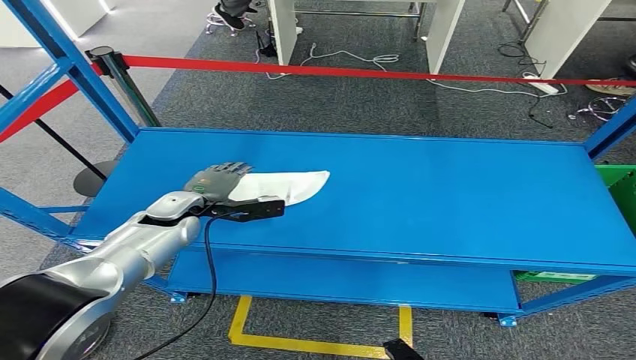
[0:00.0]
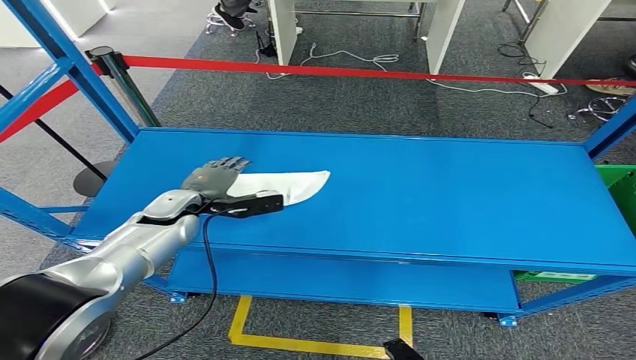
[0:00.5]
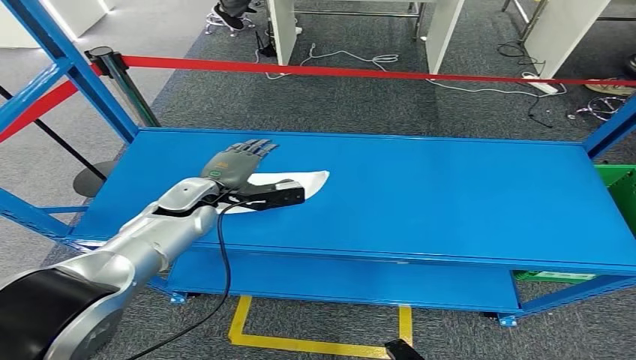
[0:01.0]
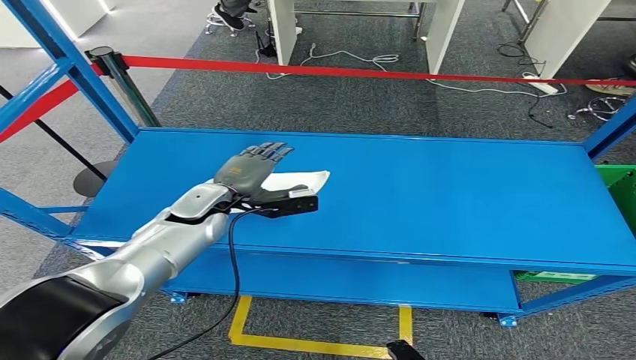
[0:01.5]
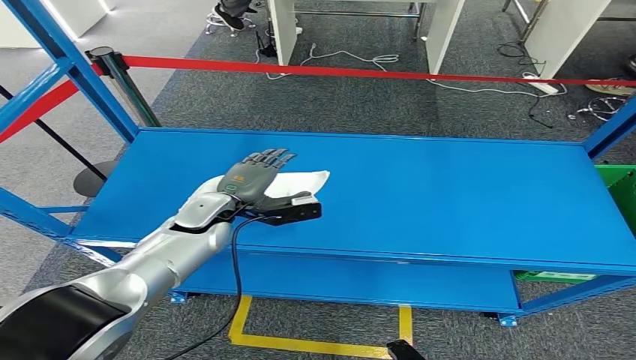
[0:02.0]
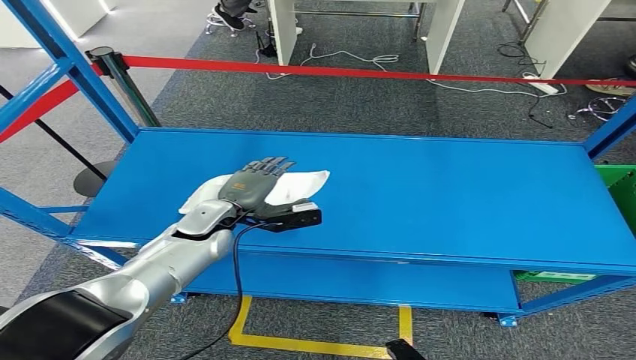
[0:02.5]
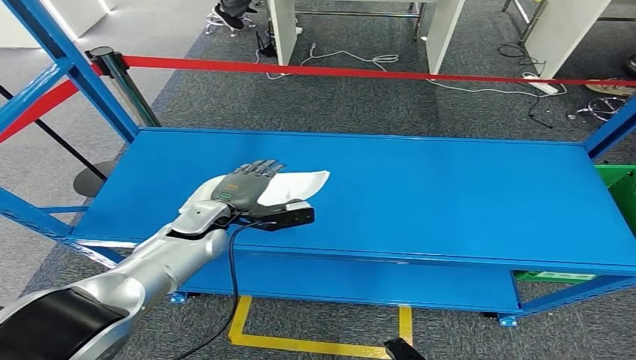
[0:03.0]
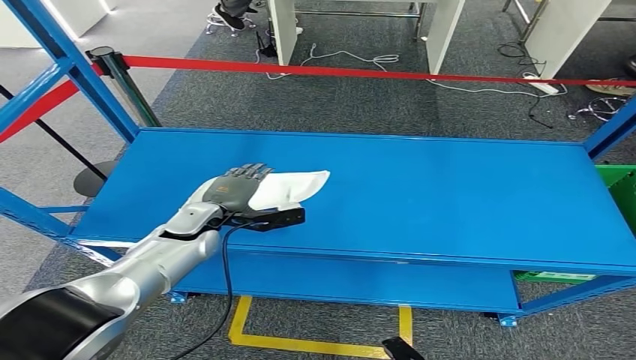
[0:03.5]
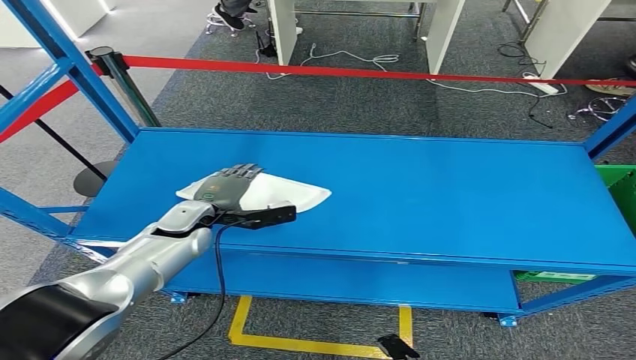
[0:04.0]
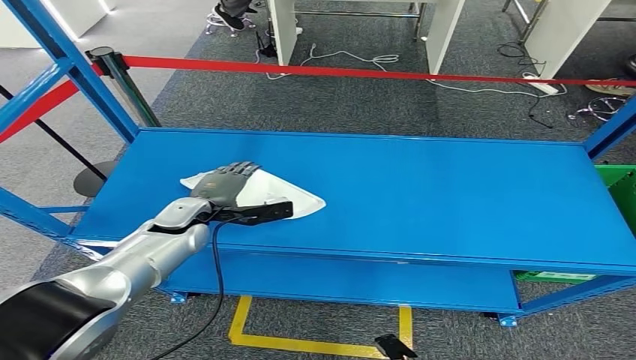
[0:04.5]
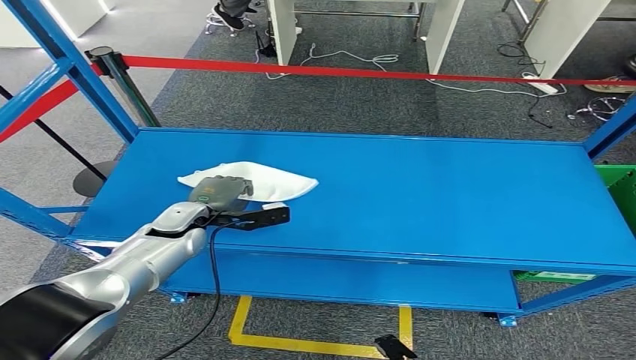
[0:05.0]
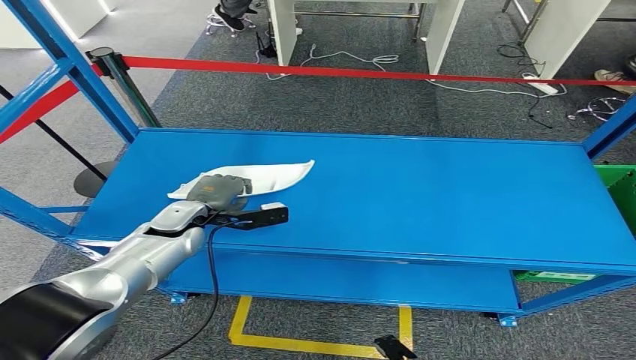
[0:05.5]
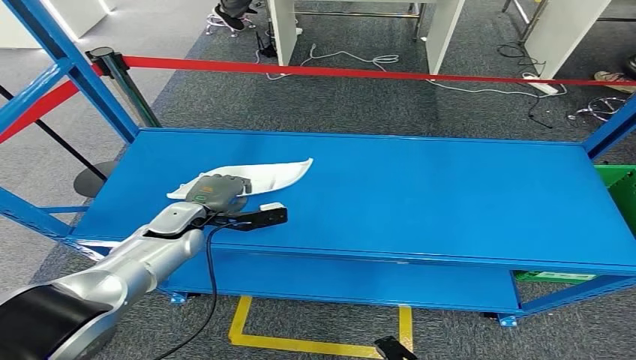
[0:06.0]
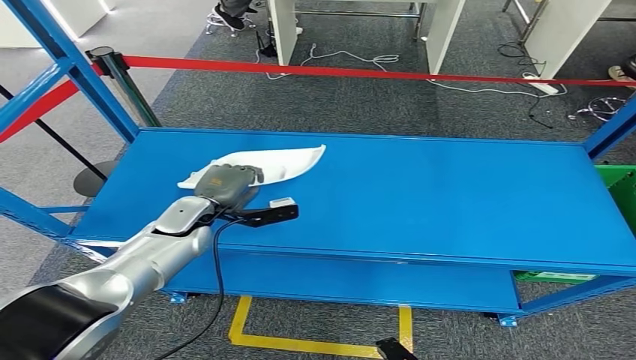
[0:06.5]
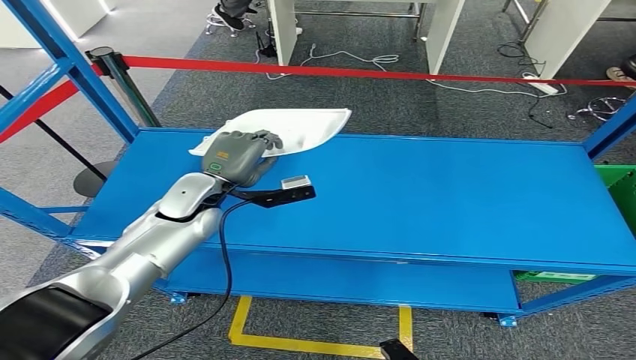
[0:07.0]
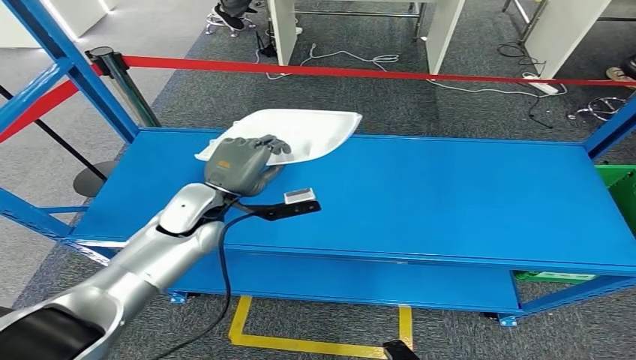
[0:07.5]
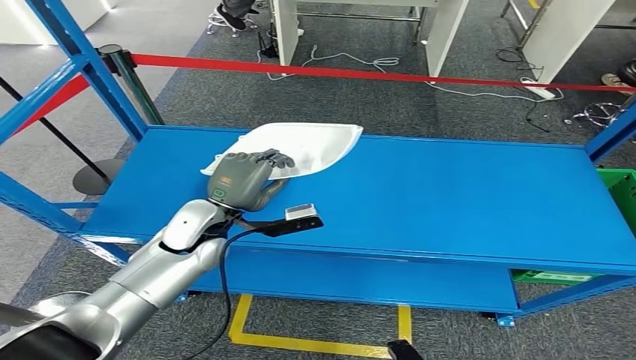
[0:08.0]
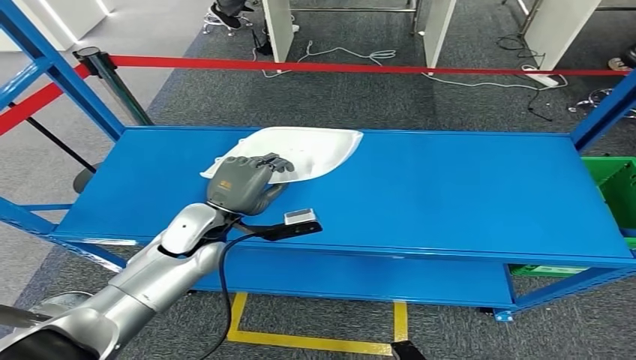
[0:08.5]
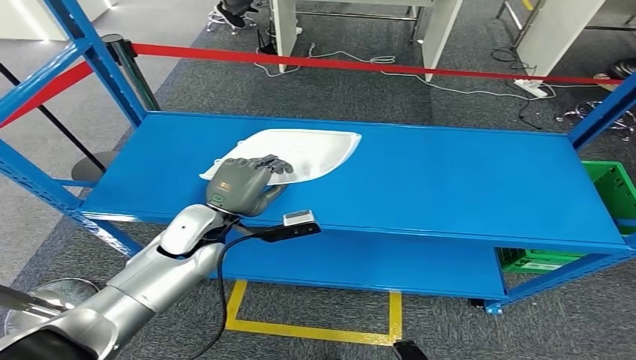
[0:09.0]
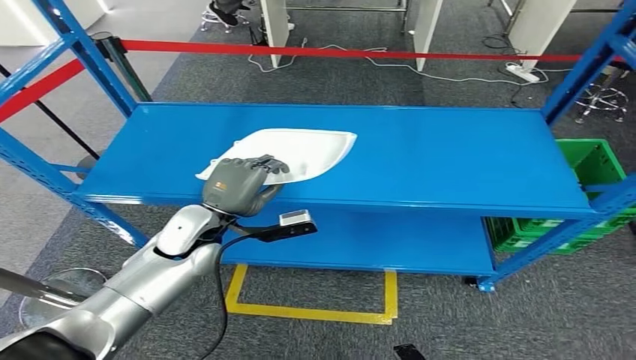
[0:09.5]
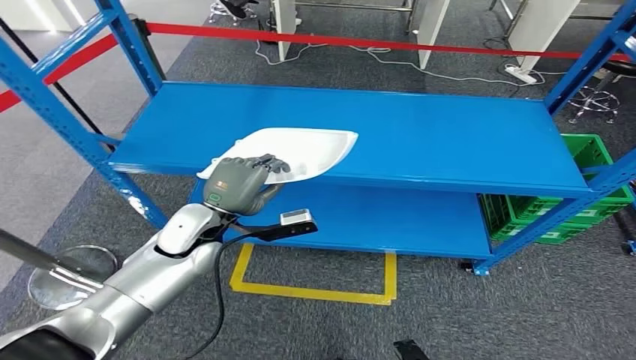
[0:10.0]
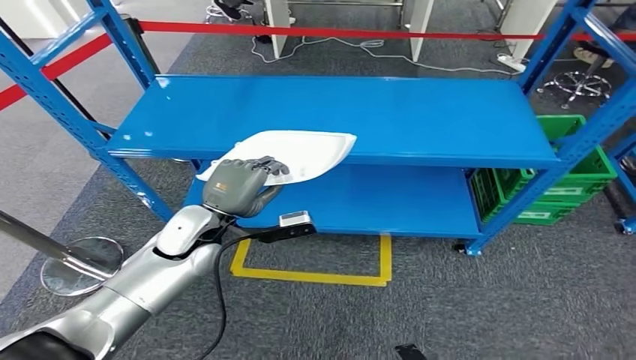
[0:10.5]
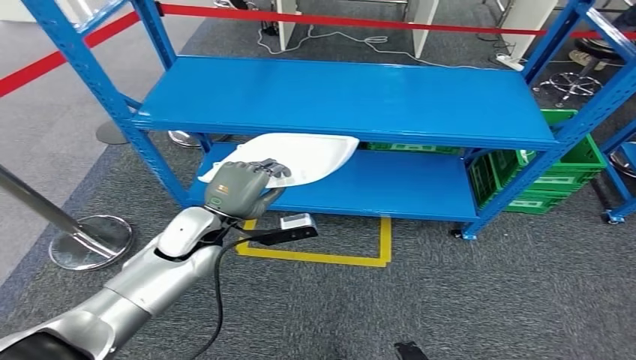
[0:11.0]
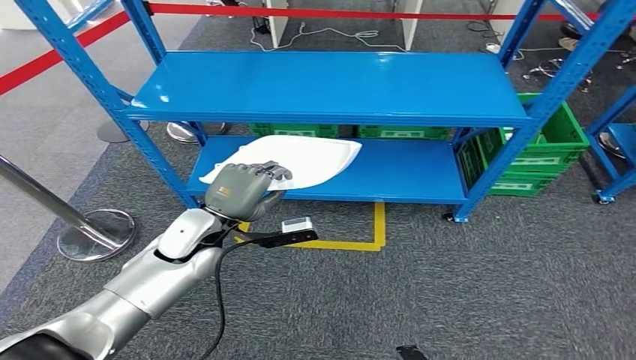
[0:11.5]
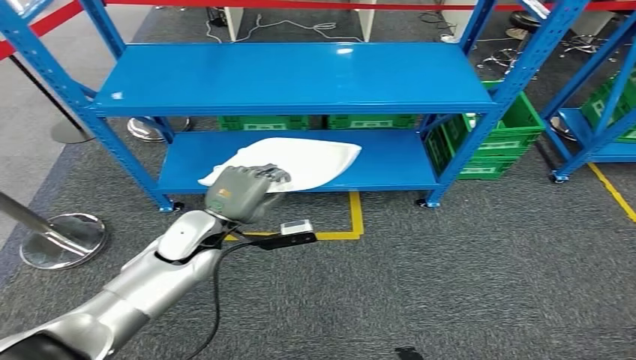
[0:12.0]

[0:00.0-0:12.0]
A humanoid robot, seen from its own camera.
Step, 0:00.0 to 0:09.0: Pick up the small component from the shelf.
0:00.0 to 0:02.0: The left hand moves to the right, roughly 5 cm.
0:02.0 to 0:04.0: The hands stay close to where they were, moving slightly.
0:04.0 to 0:06.0: There are only small adjustments of the hands.

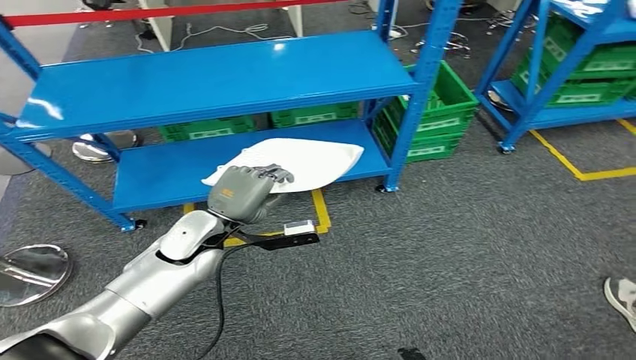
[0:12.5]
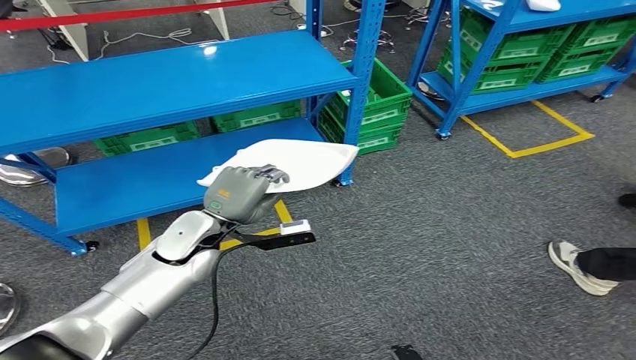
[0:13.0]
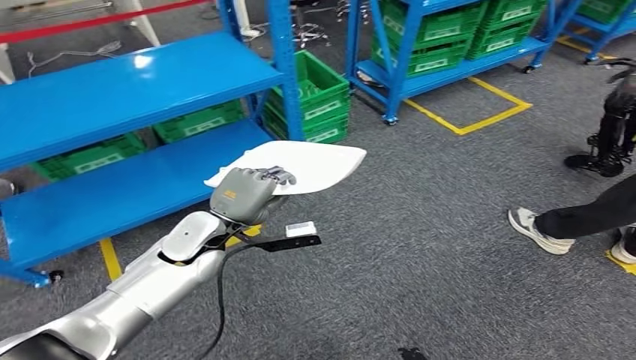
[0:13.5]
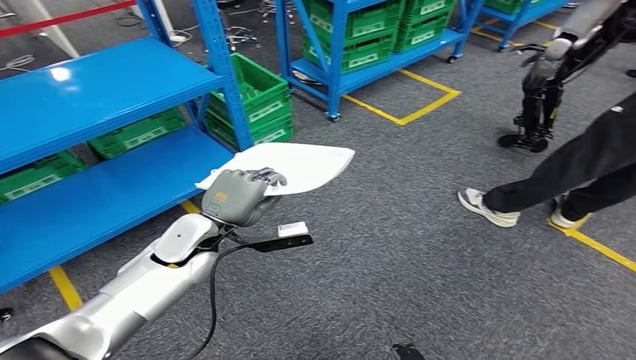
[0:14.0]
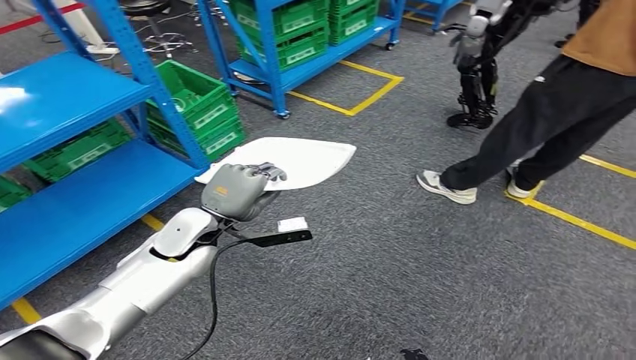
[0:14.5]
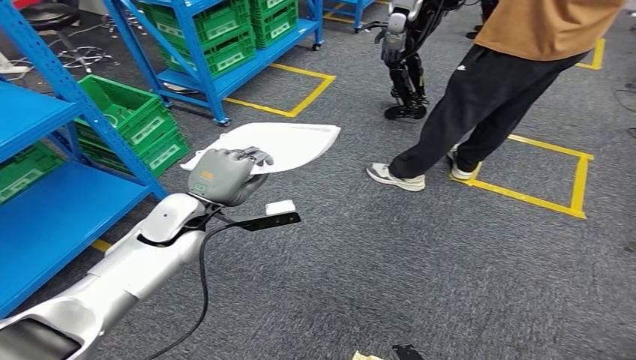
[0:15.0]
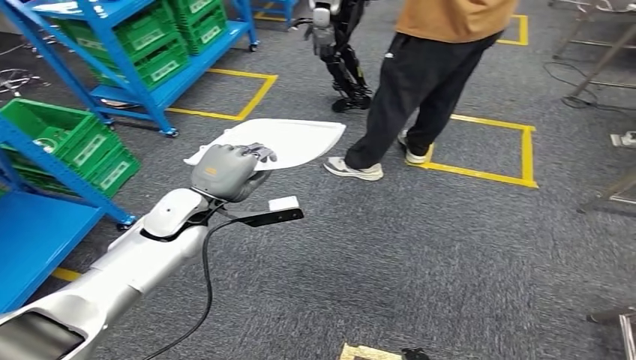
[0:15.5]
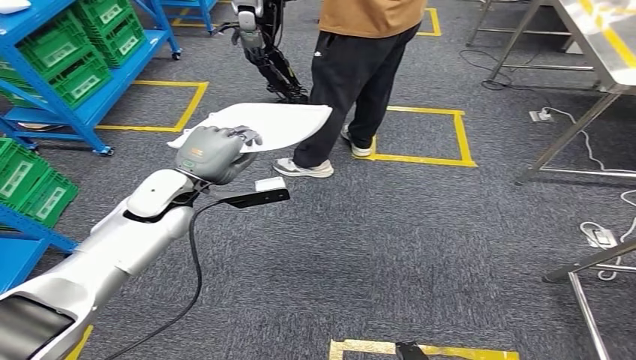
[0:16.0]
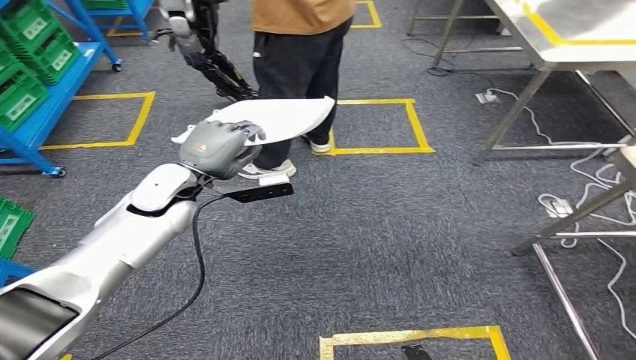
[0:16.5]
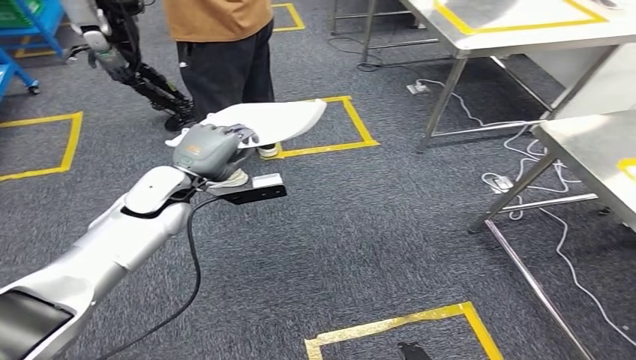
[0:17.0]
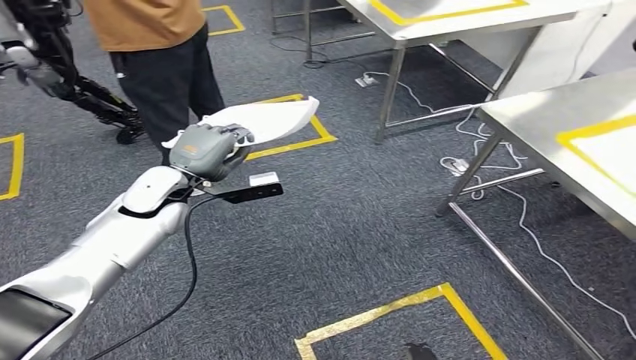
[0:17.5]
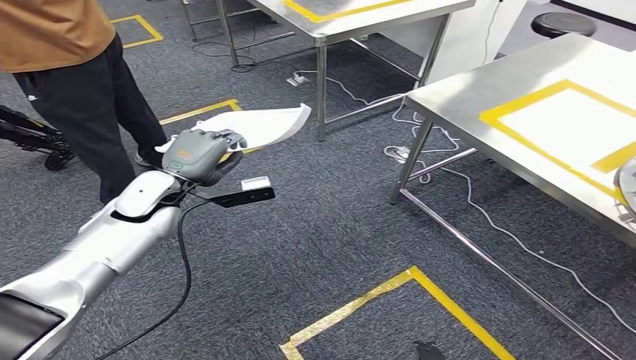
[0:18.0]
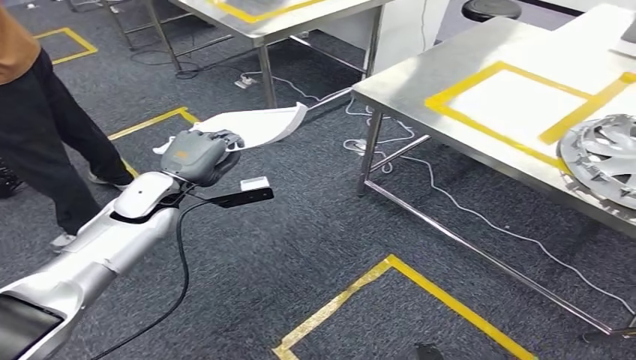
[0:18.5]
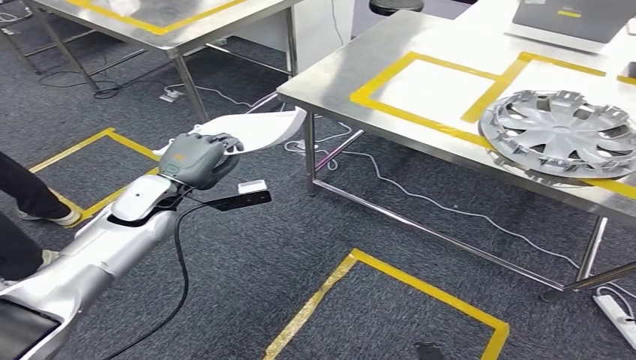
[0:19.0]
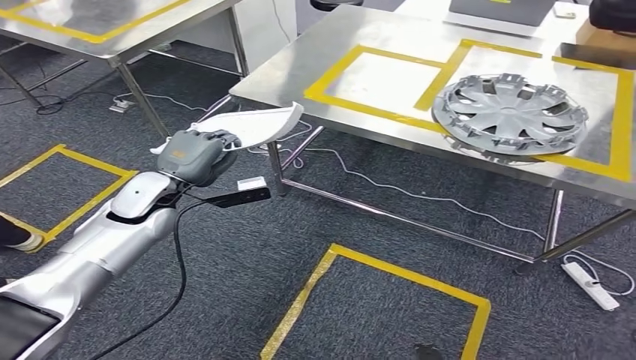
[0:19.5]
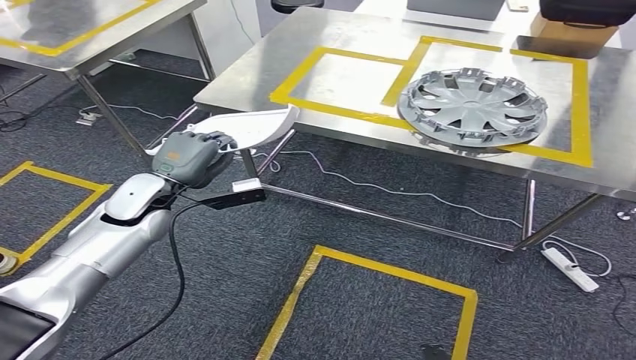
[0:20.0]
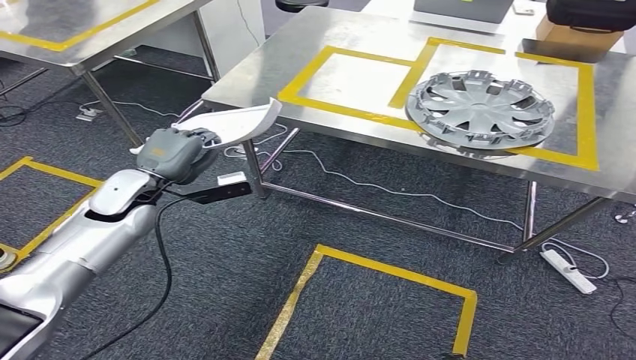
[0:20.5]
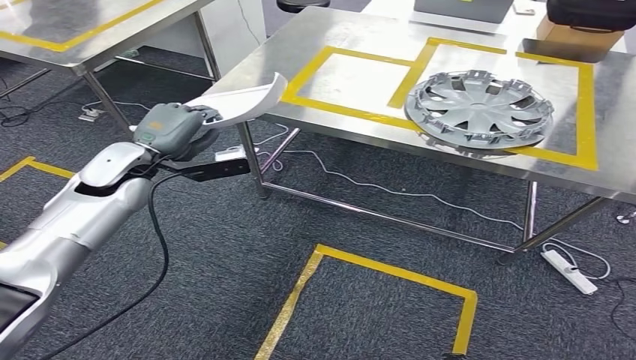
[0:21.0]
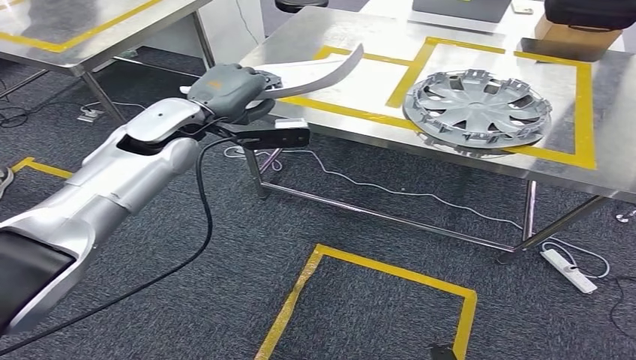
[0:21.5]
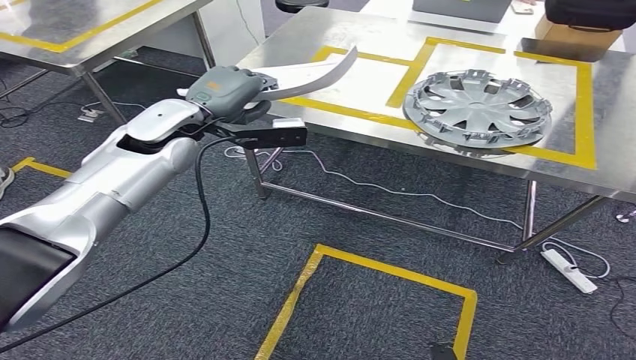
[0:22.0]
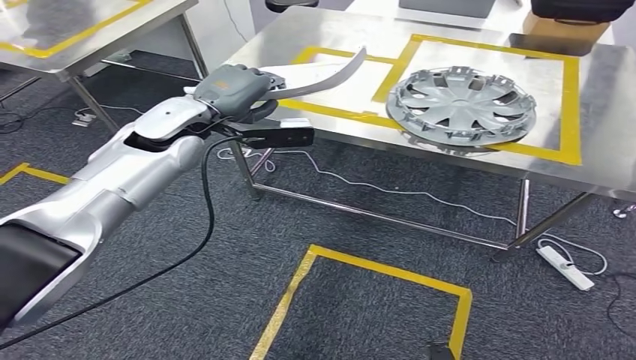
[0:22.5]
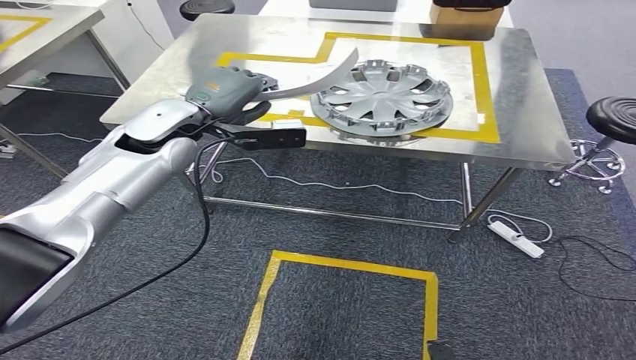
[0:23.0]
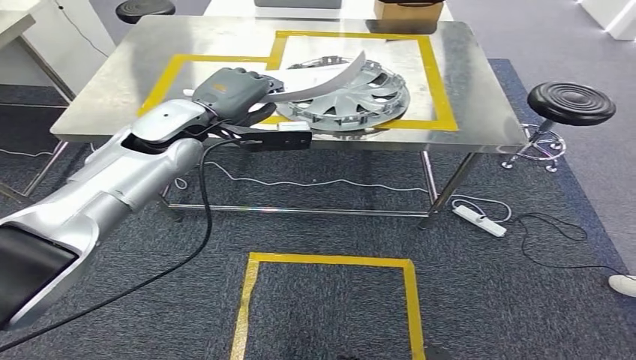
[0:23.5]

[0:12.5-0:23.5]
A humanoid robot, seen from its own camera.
Step, 0:12.5 to 0:22.5: Move the small component to the workbench.
